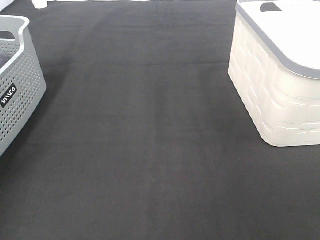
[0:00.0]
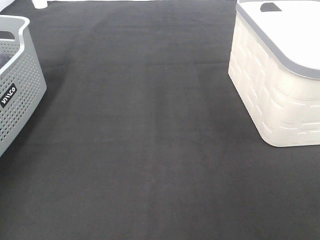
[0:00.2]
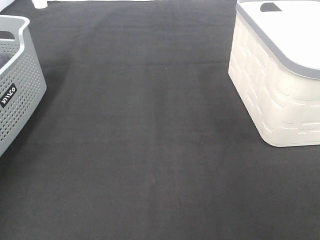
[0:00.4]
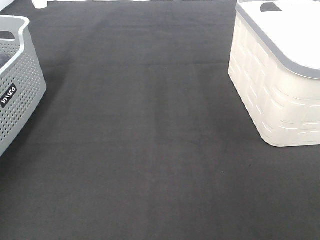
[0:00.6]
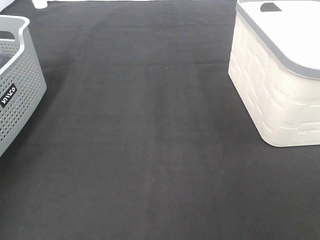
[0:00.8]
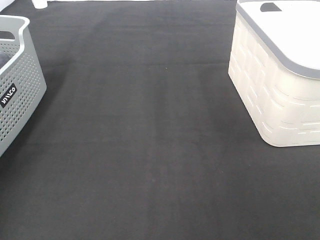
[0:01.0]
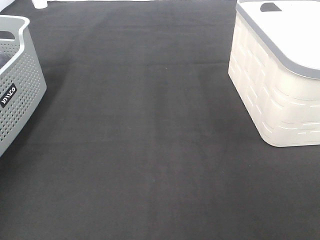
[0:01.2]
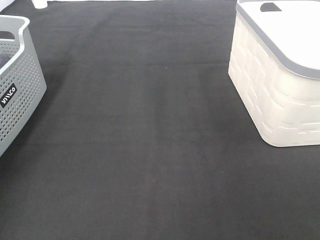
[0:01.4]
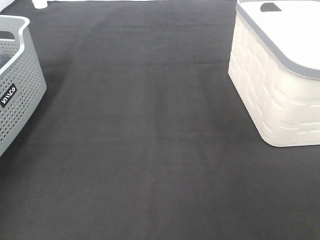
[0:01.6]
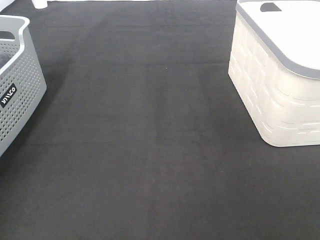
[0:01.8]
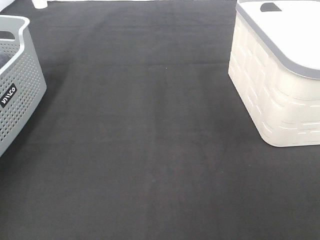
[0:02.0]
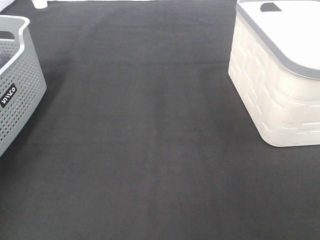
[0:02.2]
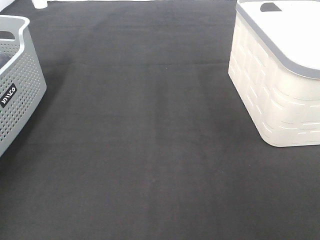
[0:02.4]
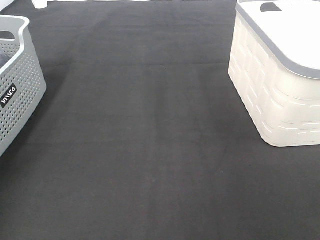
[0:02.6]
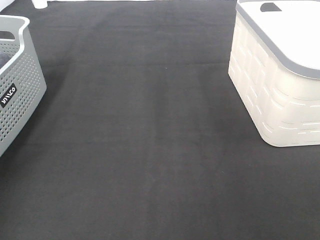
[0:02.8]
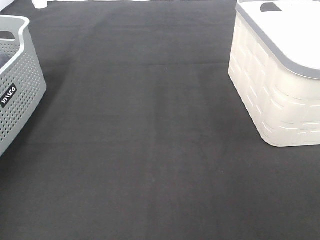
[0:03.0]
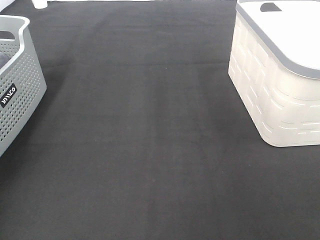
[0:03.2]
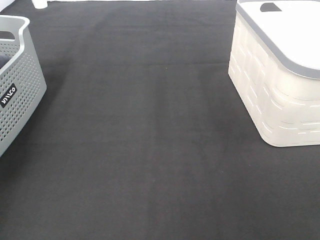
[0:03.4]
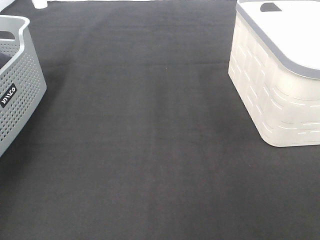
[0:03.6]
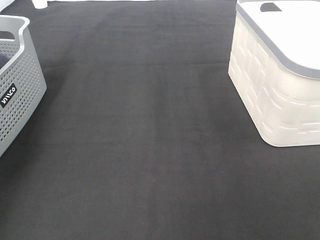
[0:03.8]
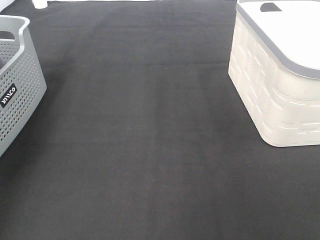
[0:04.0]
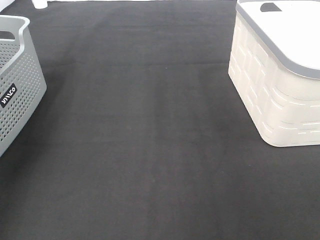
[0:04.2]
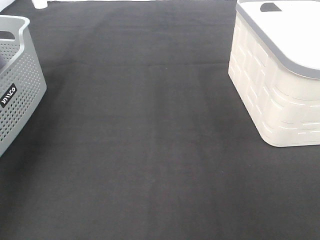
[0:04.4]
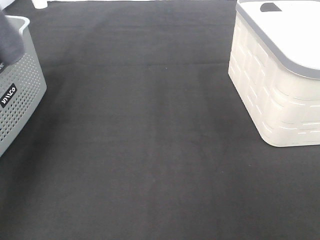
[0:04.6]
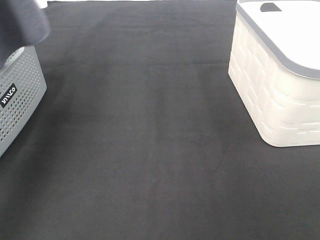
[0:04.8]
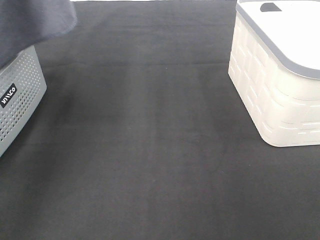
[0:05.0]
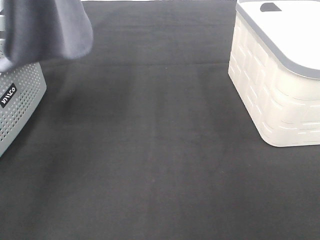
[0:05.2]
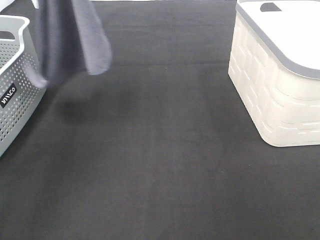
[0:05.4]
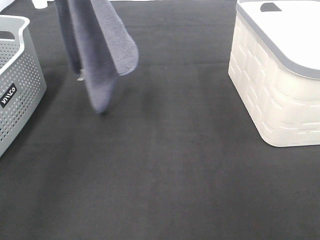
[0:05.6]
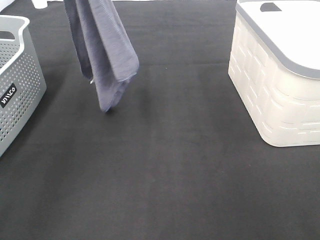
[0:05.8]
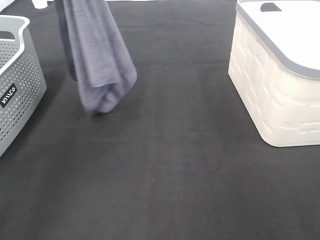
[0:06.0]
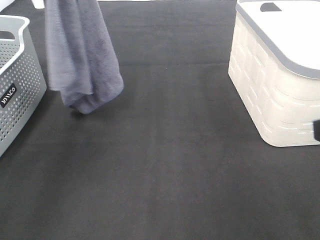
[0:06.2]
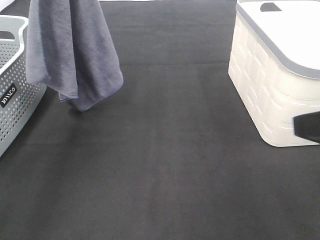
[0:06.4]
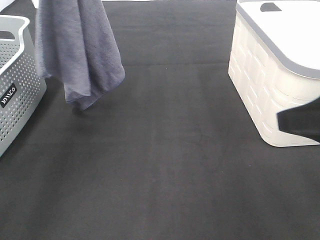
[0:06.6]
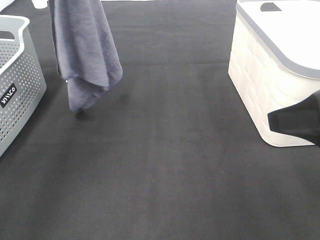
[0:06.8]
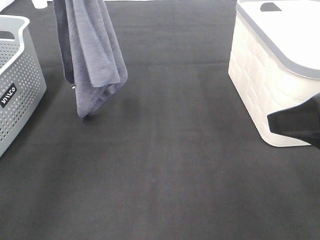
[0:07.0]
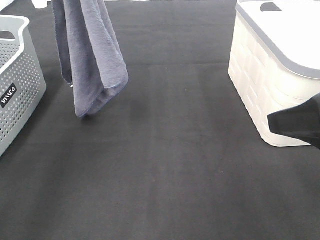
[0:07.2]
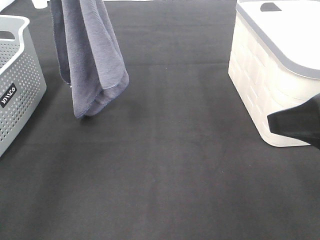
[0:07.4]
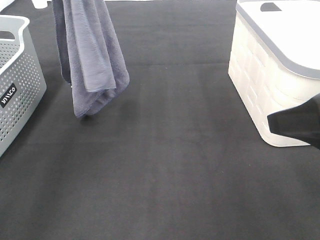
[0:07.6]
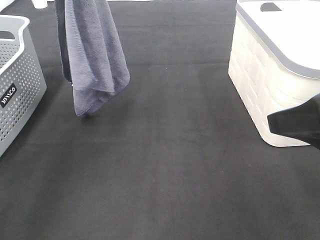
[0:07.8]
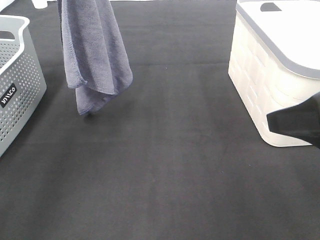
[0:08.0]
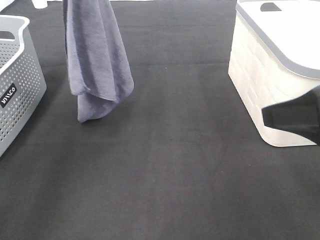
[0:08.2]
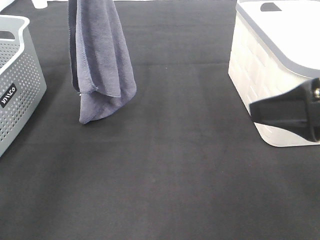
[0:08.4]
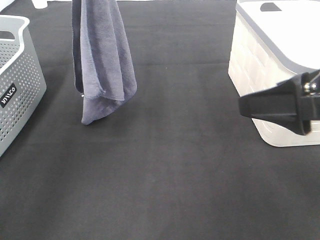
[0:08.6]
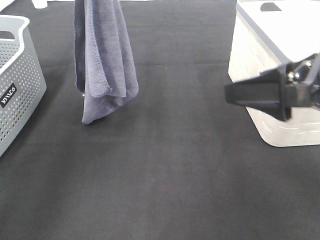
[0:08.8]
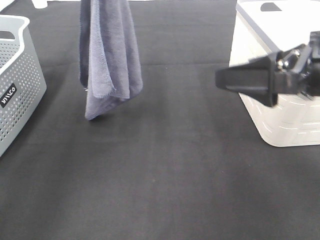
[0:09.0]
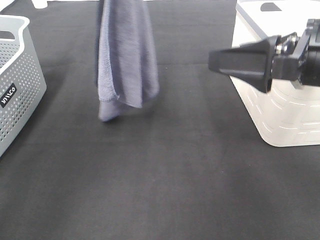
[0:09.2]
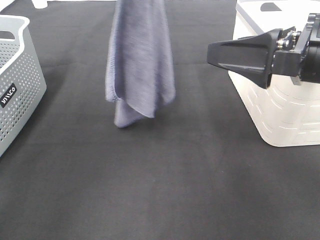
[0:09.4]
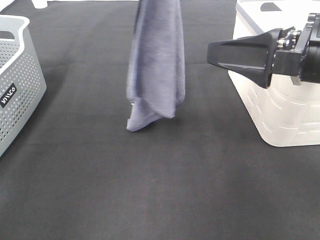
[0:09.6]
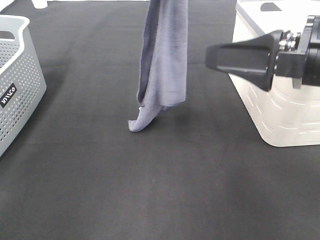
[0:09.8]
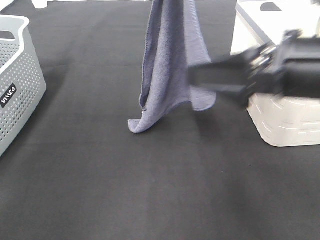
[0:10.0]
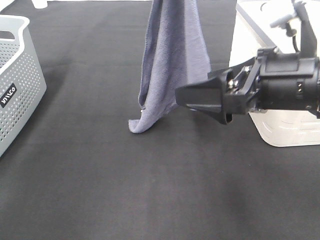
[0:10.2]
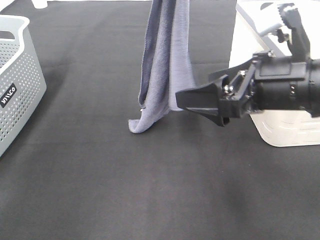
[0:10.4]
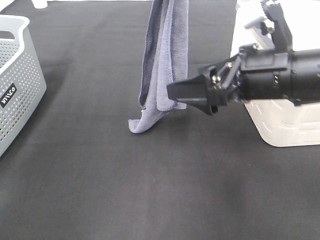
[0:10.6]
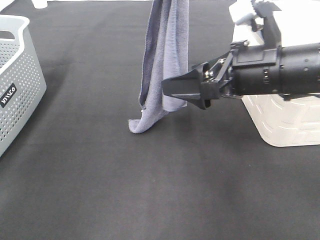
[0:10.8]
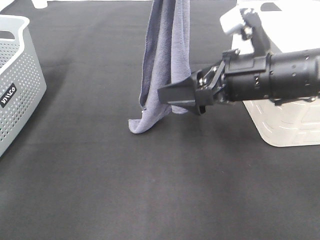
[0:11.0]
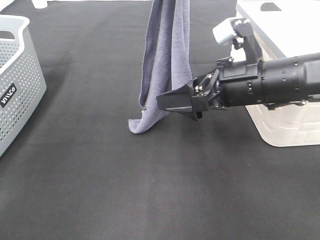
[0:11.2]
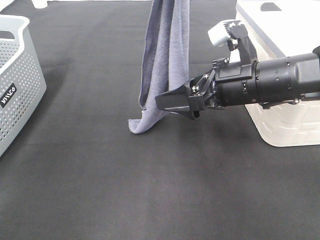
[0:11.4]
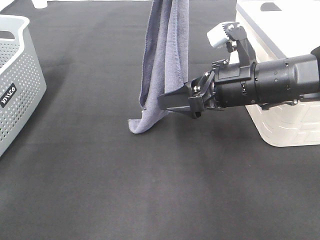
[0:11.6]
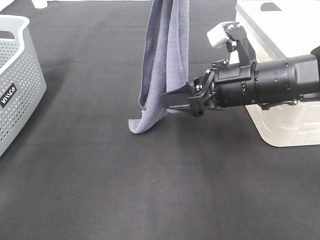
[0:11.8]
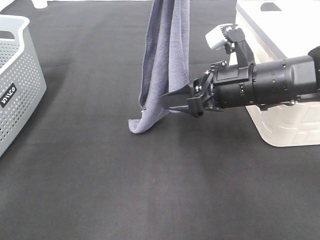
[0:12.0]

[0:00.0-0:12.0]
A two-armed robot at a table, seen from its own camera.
Task of the whole recording: Remove the towel and place it.
Step, 0:03.8 to 0:10.0: Right hand: grab a corner of the grey towel and straighten it.
0:00.0 to 0:01.6: Both grippers stay about where they are.
0:03.0 to 0:04.4: The left gripper shifts about 25 cm upward and backward.
0:04.4 to 0:06.0: The right gripper moves forward, some 10 cm; the left gripper shifts roughly 15 cm to the right and forward.
0:06.0 to 0:07.6: The right gripper travels forward by some 5 cm.
0:07.6 to 0:09.0: The right gripper shifts approximately 5 cm forward.
0:09.0 to 0:10.4: The left gripper travels to the right by about 10 cm; the right gripper ends up approximately 5 cm from where it was.
0:10.4 to 0:12.0: The right gripper moves forward, approximately 5 cm.

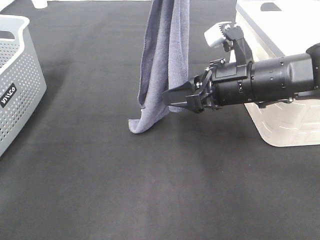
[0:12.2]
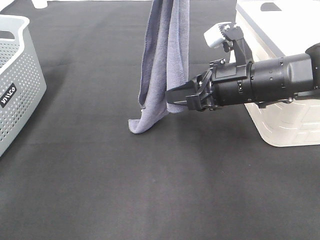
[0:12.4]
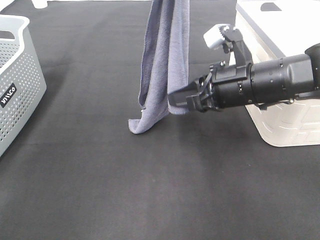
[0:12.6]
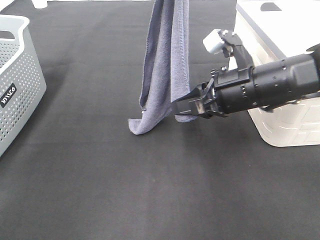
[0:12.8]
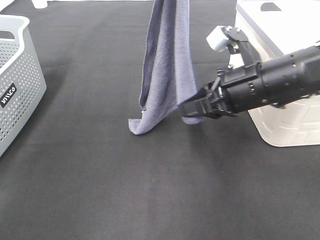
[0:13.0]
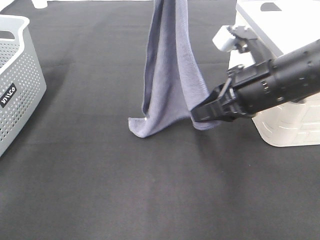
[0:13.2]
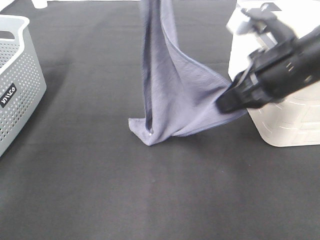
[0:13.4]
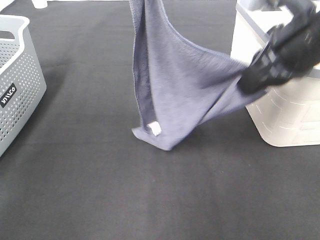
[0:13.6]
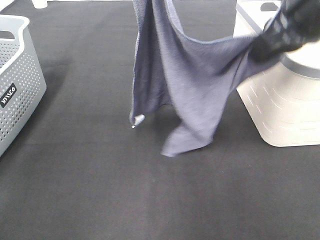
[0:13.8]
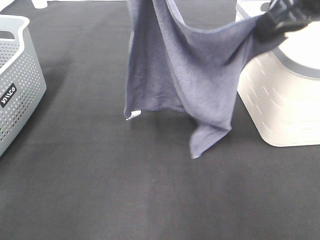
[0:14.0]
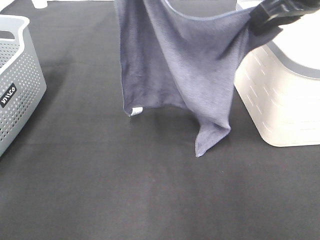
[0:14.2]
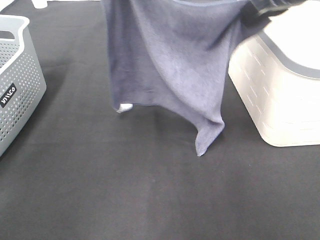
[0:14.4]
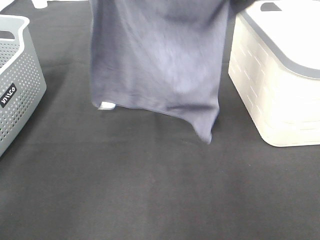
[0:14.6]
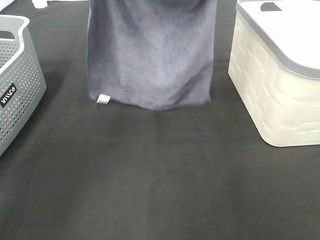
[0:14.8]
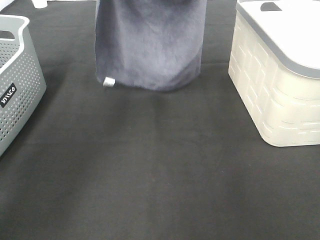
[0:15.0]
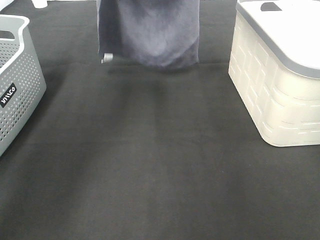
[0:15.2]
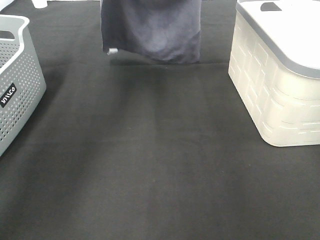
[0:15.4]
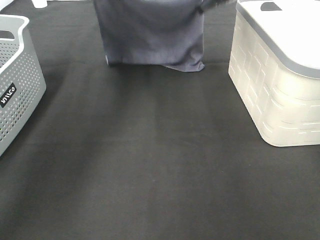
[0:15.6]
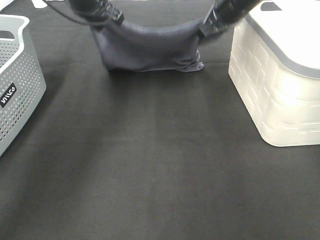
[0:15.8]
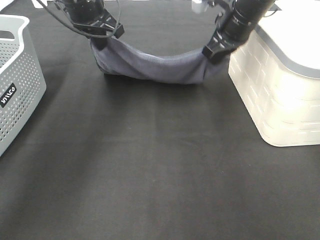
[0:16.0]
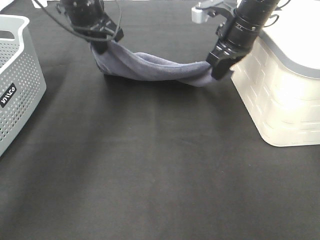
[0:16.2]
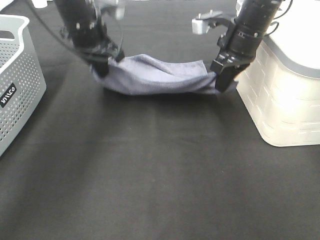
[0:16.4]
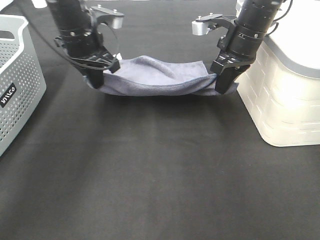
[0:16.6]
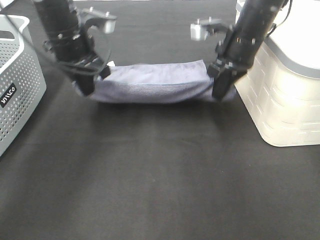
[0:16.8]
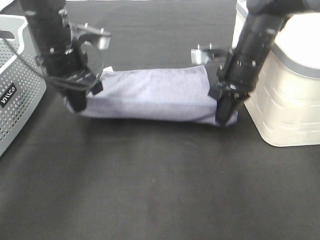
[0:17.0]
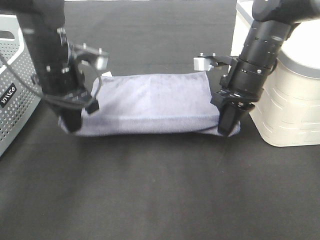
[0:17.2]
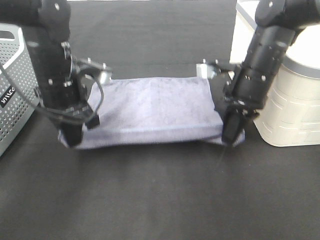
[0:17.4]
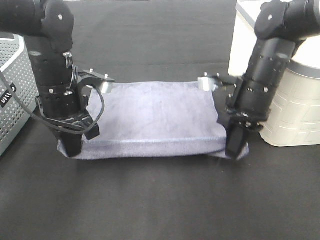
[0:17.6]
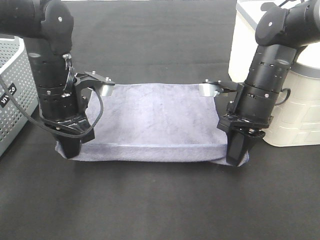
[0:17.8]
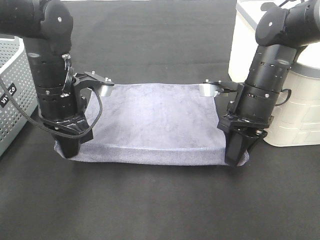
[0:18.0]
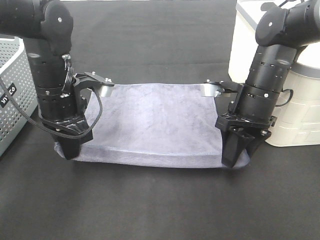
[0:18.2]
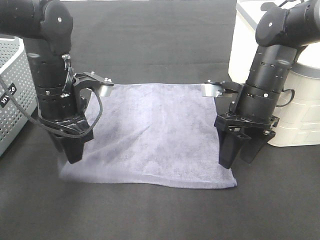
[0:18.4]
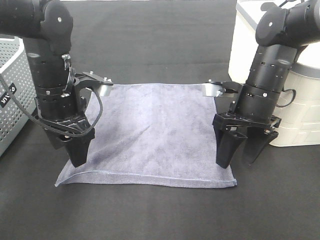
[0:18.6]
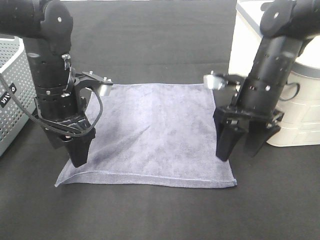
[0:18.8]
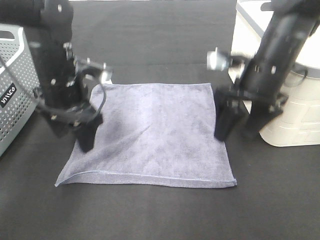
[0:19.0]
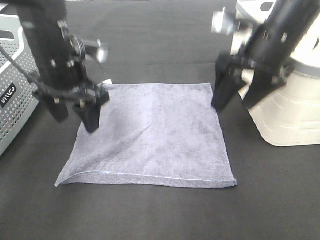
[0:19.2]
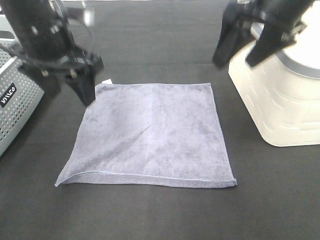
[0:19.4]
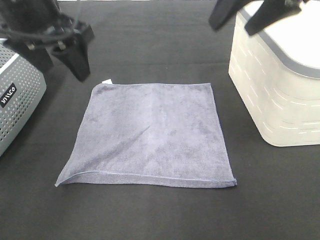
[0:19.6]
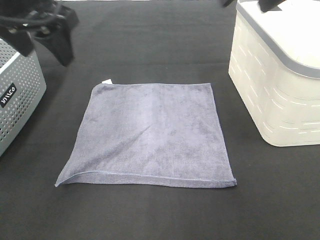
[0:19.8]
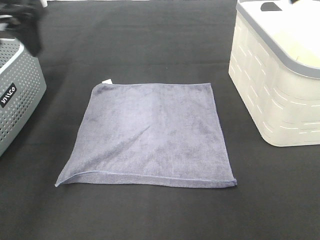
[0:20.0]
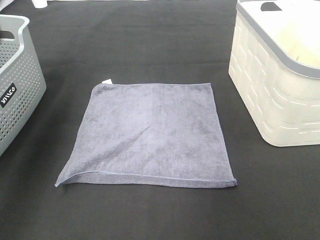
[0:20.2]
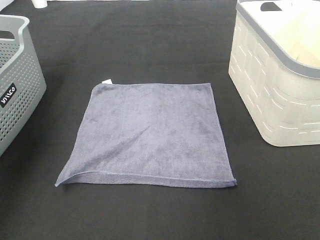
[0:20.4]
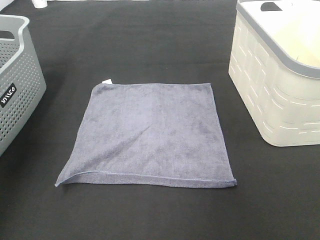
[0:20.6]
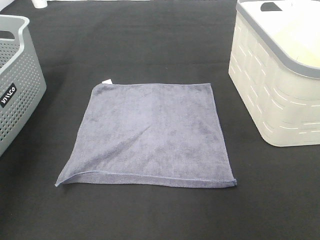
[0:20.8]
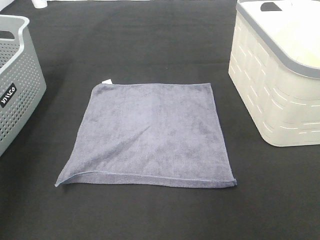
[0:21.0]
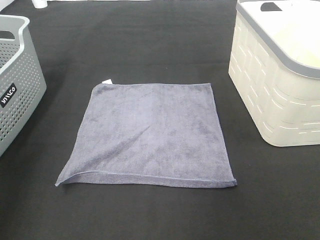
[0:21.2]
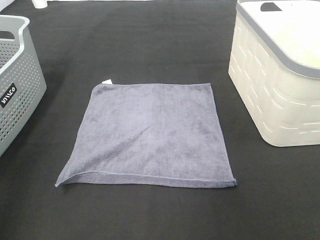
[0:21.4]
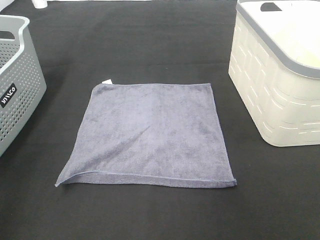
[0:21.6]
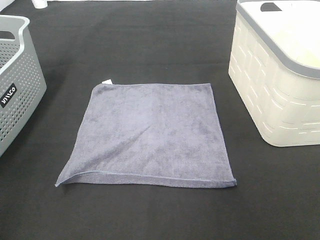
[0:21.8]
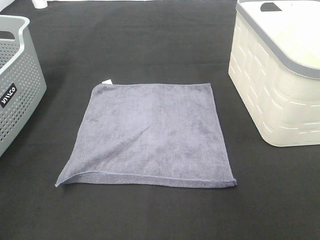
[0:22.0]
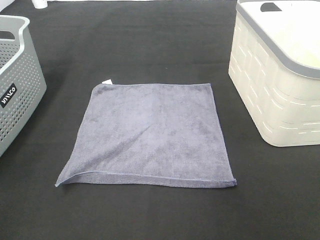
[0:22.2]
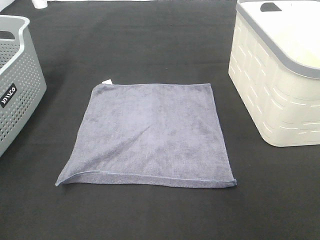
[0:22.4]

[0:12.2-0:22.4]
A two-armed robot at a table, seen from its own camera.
Task of the whole recording: Remove the towel and place it.
0:12.2 to 0:13.6: The right gripper heads upward, covering some 10 cm, and closes its fingers.
0:13.6 to 0:15.2: The left gripper shifts some 15 cm forward and to the left. Meanwhile the right gripper goes approximately 20 cm forward.
0:15.2 to 0:16.6: The grippers both shift downward by approximately 15 cm.
0:16.6 to 0:18.0: The grippers both shift backward and downward by approximately 10 cm.
0:18.0 to 0:19.4: The right gripper travels upward by roughly 20 cm, and opens; the left gripper shifts roughly 10 cm upward, and opens.
0:19.4 to 0:21.0: The left gripper shifts approximately 25 cm to the left, backward and upward, while the right gripper goes approximately 25 cm backward and to the right.
0:21.0 to 0:22.4: The left gripper travels backward and downward by approximately 20 cm.
